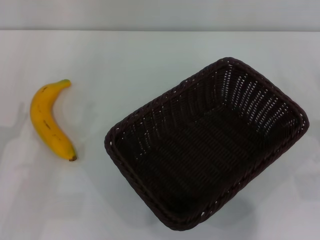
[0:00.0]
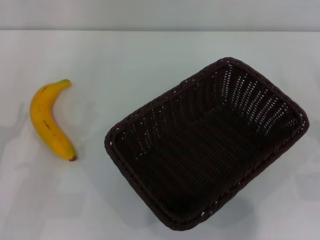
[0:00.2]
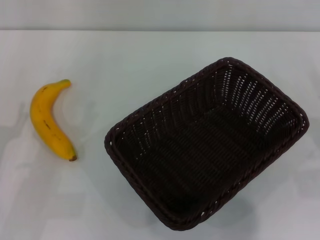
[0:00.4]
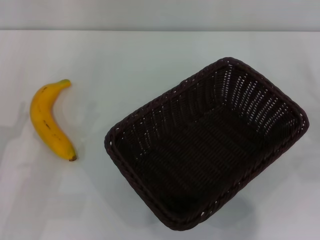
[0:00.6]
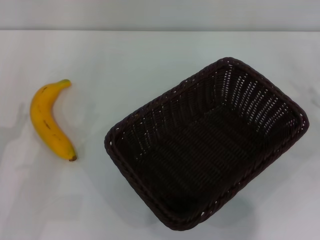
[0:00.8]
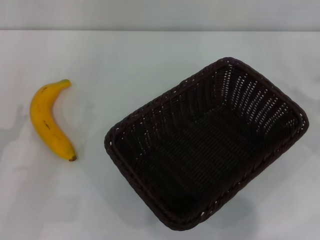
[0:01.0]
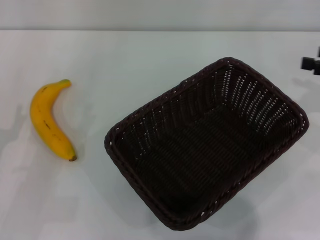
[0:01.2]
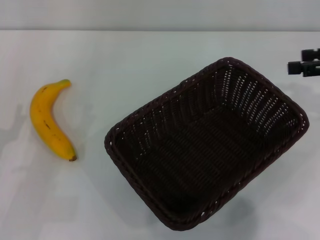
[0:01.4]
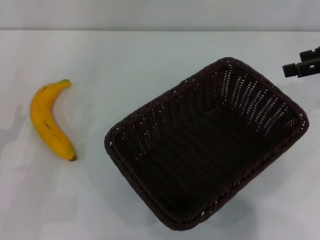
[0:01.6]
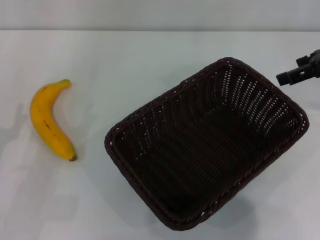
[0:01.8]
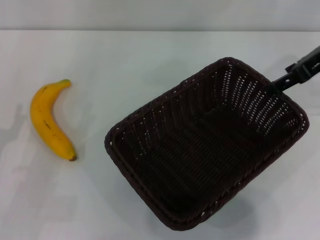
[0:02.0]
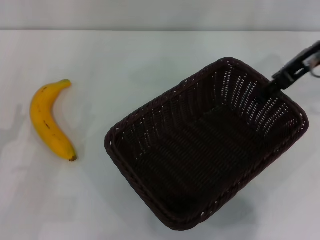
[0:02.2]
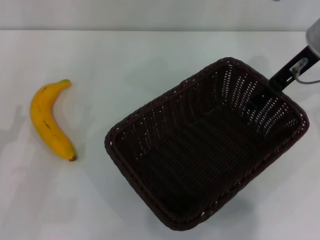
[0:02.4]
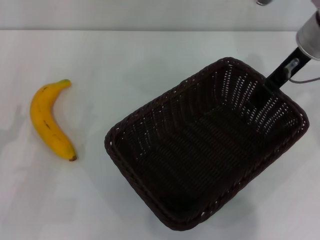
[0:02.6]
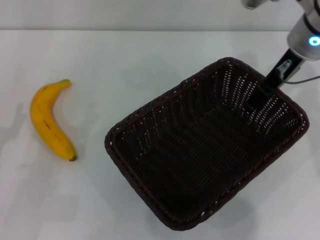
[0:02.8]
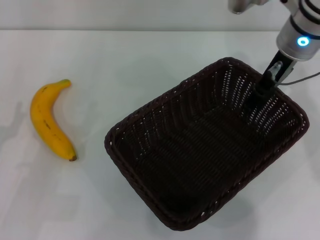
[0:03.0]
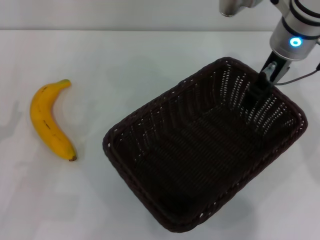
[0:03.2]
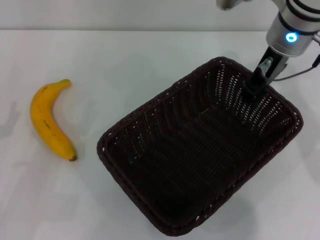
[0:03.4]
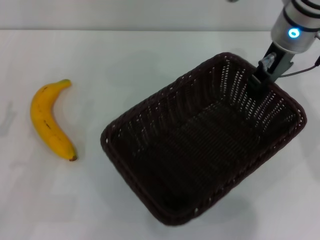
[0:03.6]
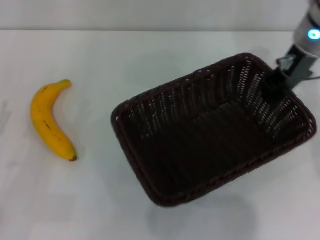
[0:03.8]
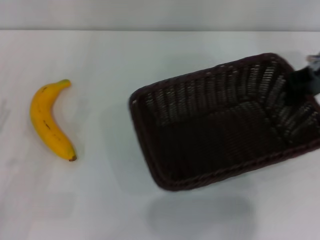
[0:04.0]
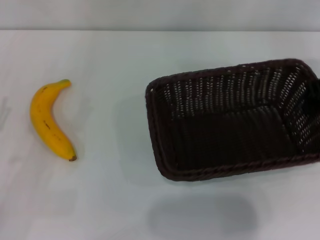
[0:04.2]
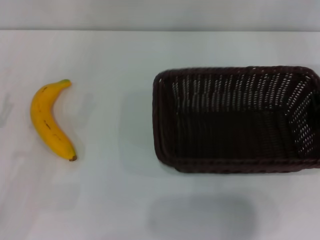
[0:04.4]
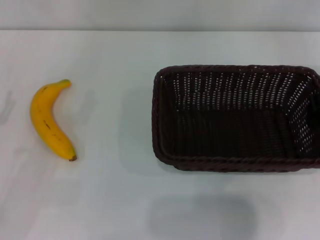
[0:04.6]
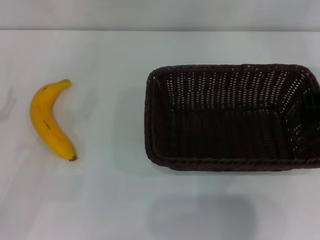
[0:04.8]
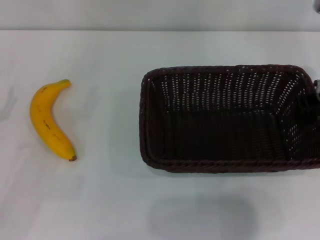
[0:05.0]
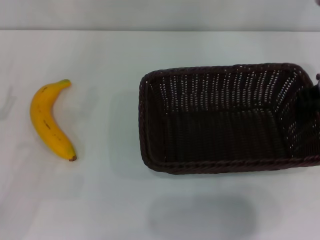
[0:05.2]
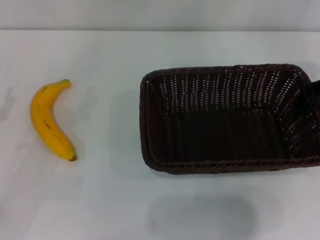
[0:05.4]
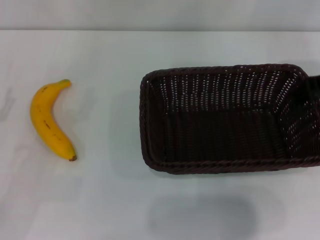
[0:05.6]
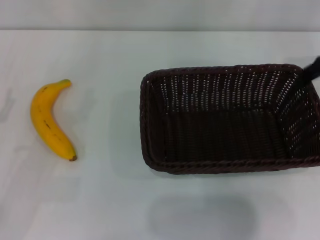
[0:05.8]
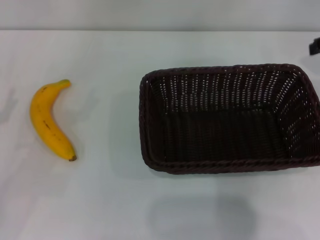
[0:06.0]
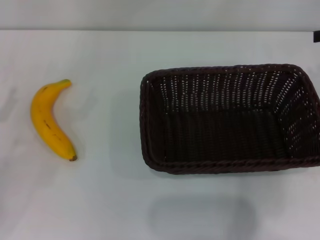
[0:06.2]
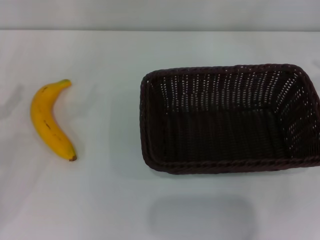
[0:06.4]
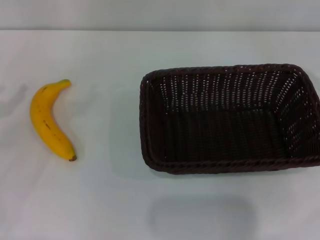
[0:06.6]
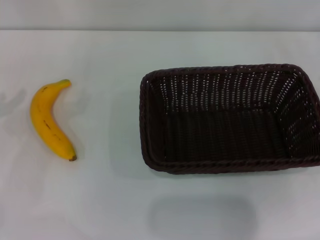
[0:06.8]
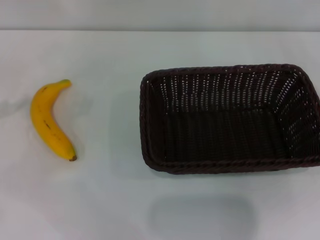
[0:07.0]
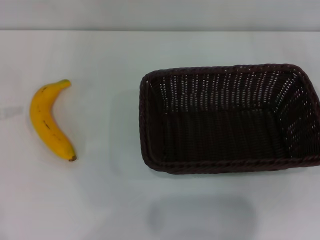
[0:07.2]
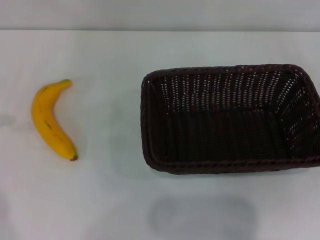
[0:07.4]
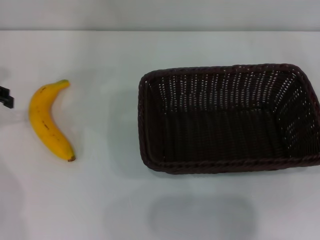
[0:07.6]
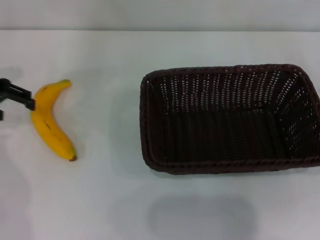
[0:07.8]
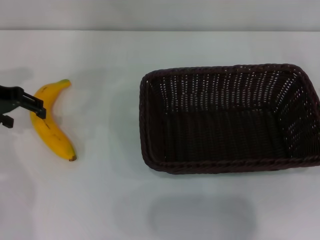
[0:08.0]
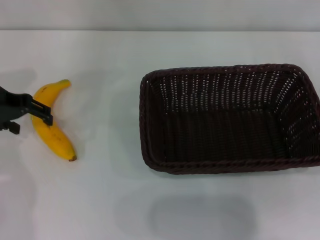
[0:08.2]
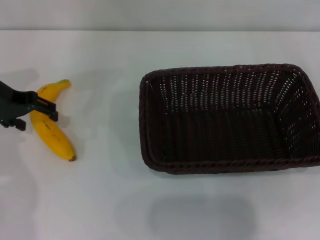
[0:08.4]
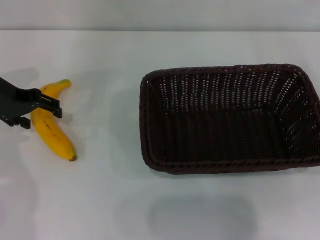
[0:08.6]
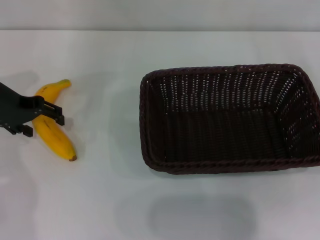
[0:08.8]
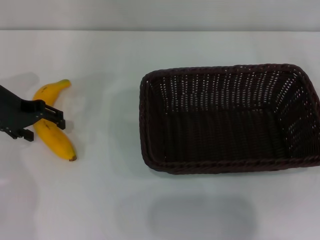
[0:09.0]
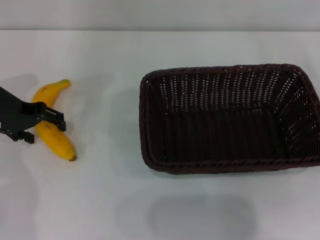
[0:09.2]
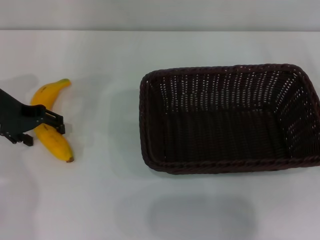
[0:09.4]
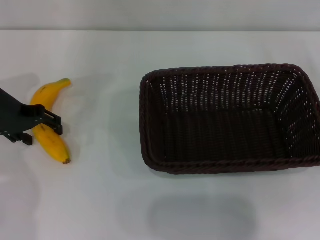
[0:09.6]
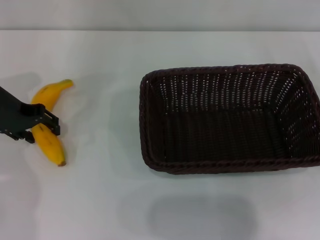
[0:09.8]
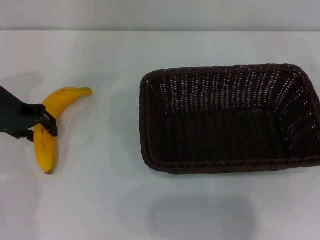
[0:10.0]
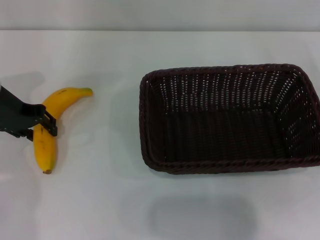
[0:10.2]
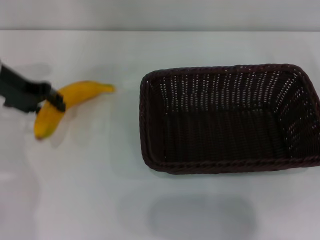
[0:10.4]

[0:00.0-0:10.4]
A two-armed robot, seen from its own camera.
Step, 0:00.0 to 0:03.8: Pick up the dark basket with the right gripper.
Step, 0:04.0 to 0:06.2: Place the dark basket in the center of view with the right gripper.
0:00.0 to 0:01.4: The right gripper goes some 20 cm upward and forward.
0:01.4 to 0:03.0: The right gripper moves to the left, about 20 cm.
0:03.0 to 0:04.4: The right gripper travels to the right by about 10 cm, and closes.
0:04.4 to 0:06.0: The right gripper shifts approximately 5 cm upward, and opens its fingers.
0:06.0 to 0:07.4: The right gripper goes approximately 20 cm downward, to the right and backward.
0:07.4 to 0:09.0: The left gripper heads to the right and downward, covering about 15 cm, and opens.
0:09.0 to 0:10.4: The left gripper closes.

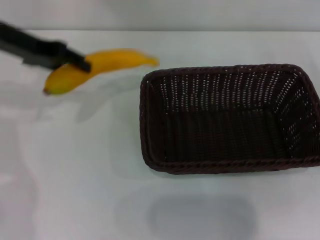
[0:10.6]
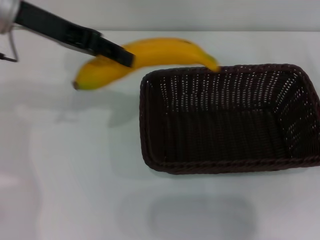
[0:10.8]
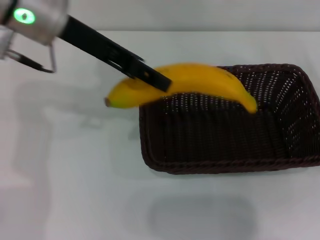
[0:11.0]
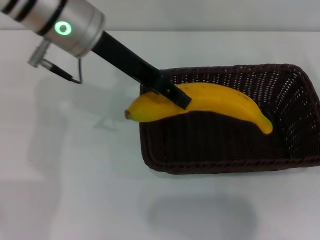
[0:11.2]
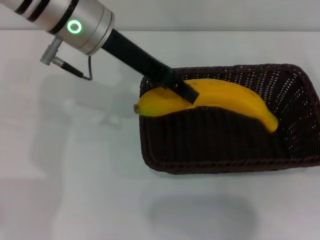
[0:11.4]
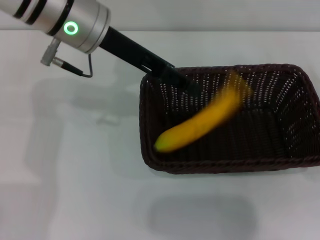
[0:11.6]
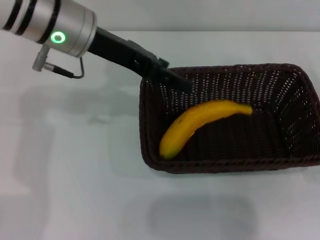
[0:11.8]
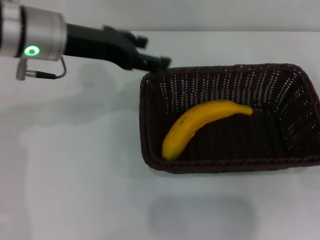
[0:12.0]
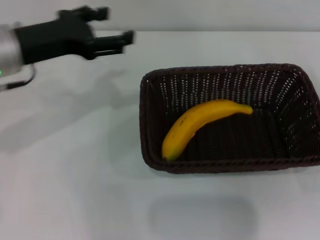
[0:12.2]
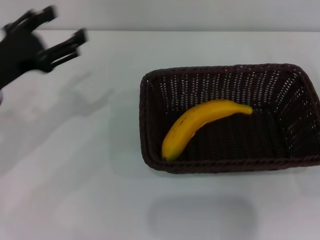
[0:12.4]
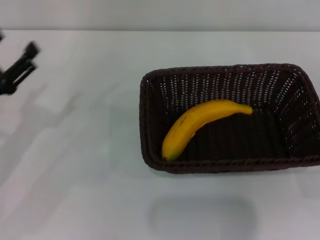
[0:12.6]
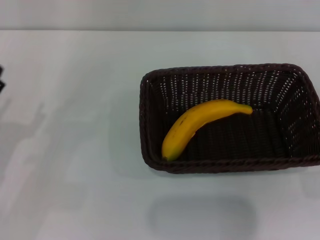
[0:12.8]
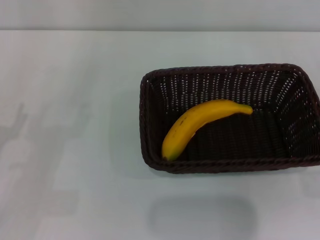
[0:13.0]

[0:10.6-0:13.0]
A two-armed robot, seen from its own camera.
Step, 0:10.8 to 0:11.6: Place the banana into the dark basket with the left gripper.
0:10.6 to 0:11.8: The left gripper shifts approximately 10 cm to the right, and opens.
0:11.8 to 0:13.0: The left gripper moves downward, to the left and backward, approximately 30 cm, and opens its fingers.

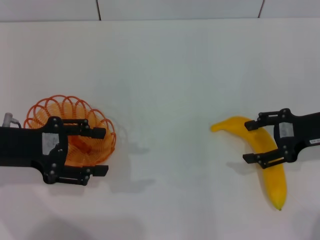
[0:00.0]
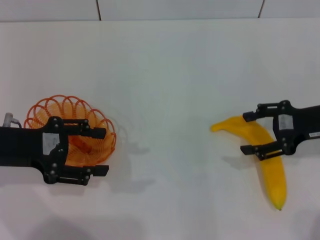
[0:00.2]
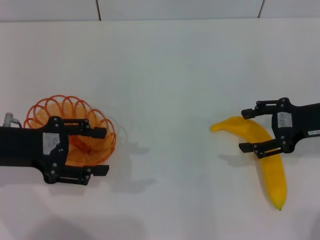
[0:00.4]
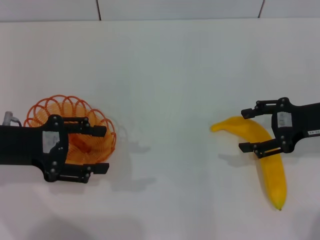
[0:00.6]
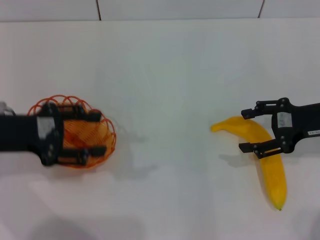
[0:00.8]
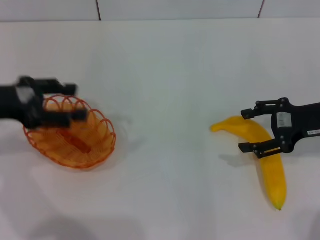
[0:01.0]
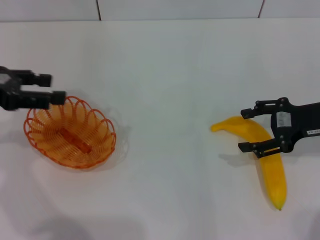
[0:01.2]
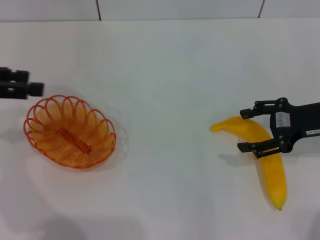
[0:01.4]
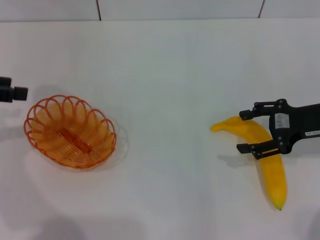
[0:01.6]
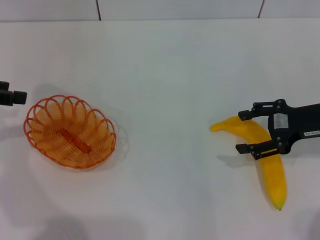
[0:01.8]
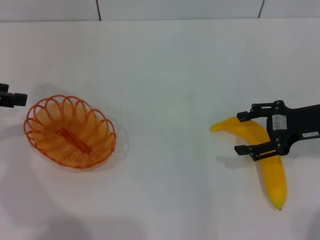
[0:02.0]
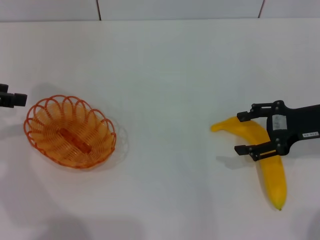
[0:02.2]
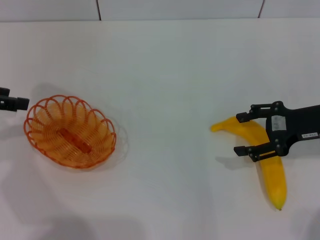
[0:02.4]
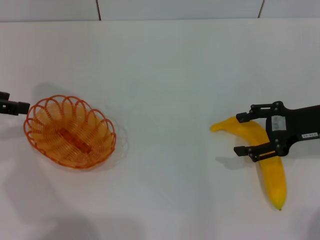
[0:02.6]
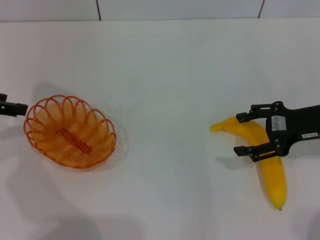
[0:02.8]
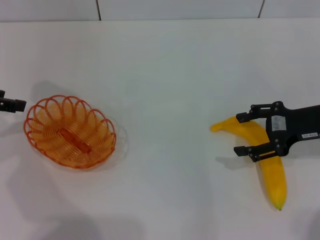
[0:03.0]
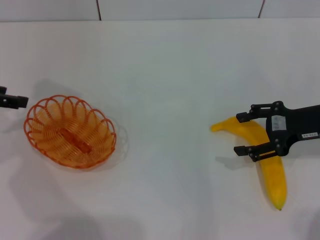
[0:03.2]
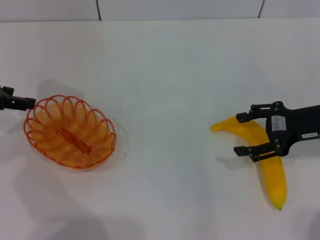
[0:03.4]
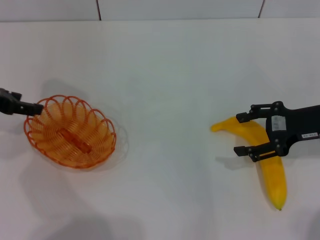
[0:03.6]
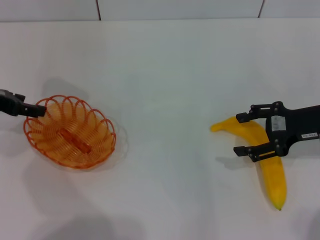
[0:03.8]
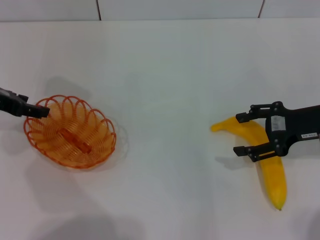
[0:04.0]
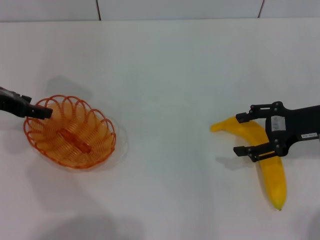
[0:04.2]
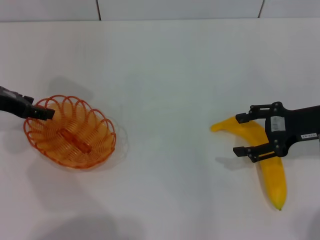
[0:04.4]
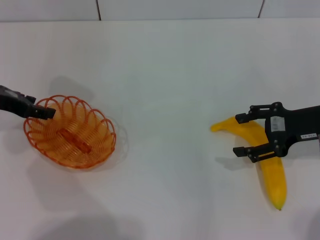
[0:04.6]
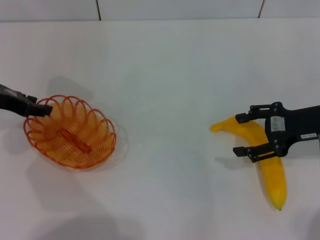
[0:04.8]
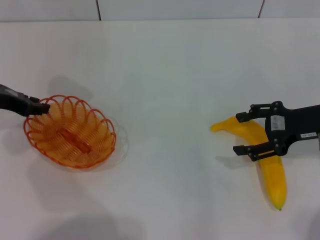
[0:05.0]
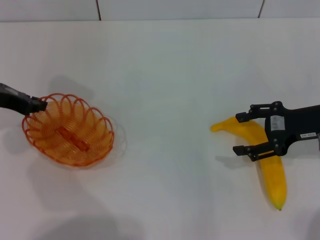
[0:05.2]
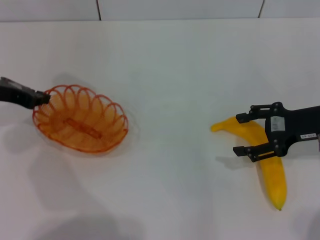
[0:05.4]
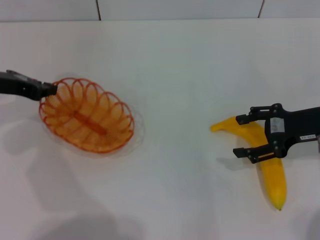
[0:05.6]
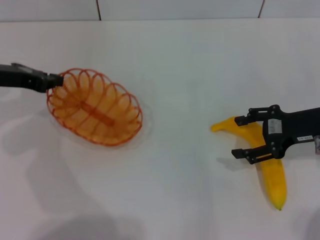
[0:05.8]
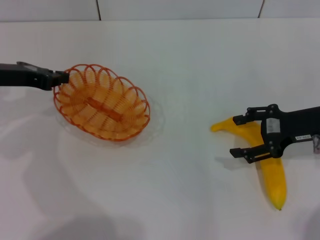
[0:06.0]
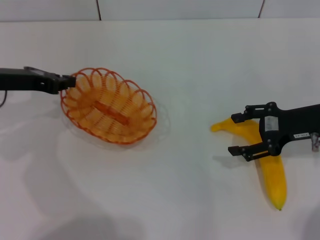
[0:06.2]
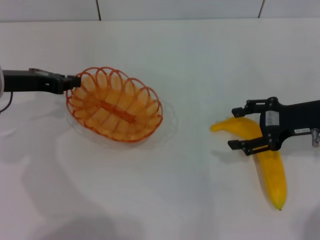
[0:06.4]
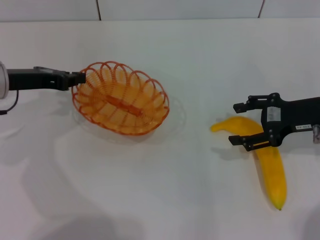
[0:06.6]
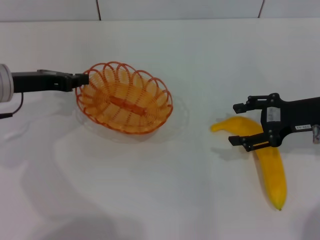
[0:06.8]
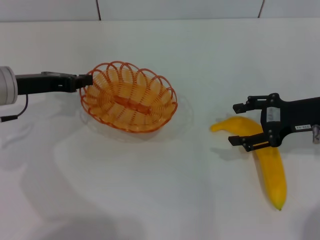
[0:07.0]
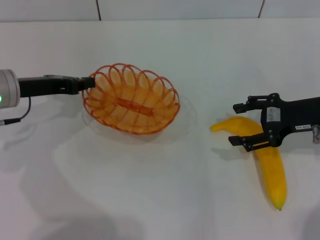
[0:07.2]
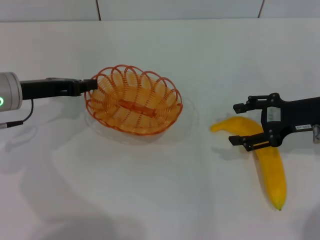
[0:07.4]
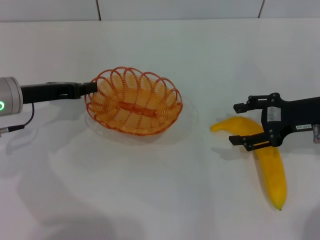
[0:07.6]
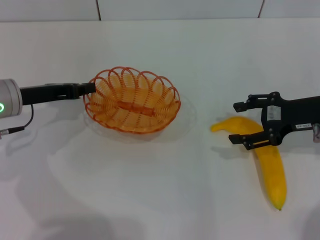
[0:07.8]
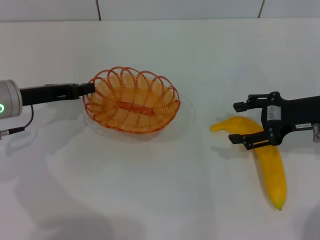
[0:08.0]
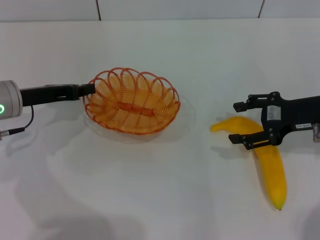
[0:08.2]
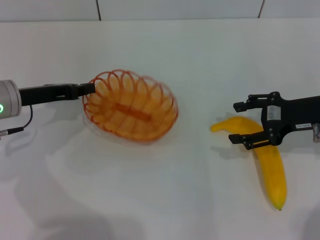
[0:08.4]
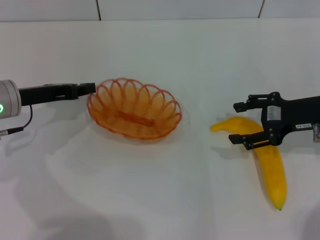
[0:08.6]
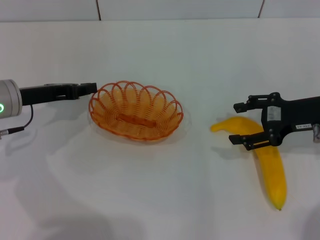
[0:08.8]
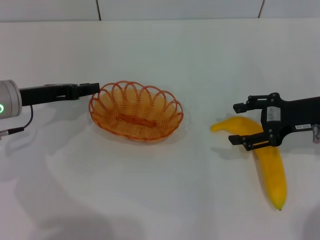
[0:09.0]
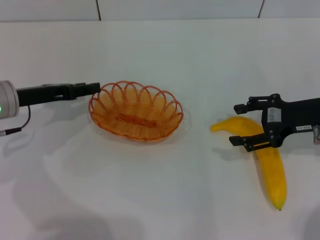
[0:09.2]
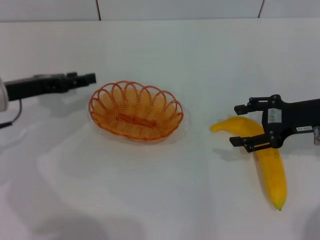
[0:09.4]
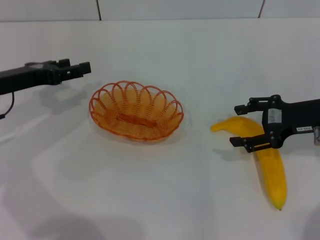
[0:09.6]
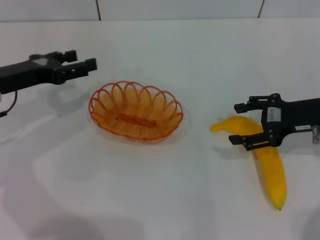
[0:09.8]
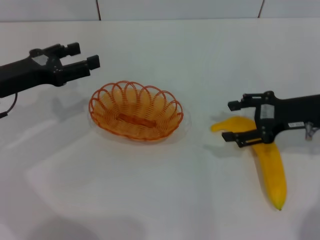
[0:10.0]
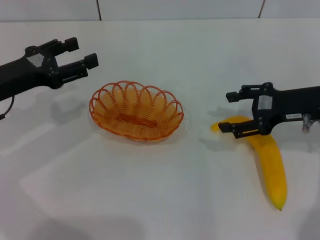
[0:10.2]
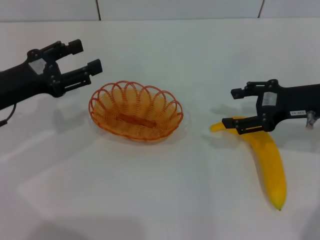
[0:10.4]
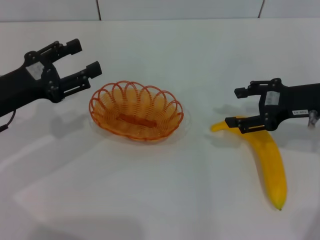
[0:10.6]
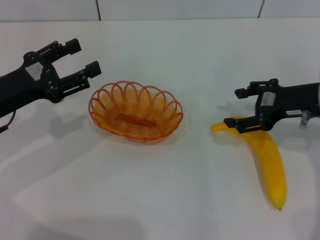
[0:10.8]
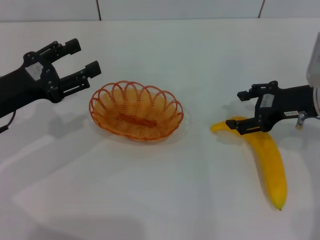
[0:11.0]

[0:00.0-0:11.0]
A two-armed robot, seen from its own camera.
Step, 0:00.0 to 0:05.8: Pick up the basket with the left gripper.
Step, 0:06.0 to 0:09.4: Place the basket in the center of view with the left gripper.
0:00.0 to 0:01.6: The left gripper moves upward and to the left, about 10 cm.
0:01.6 to 0:03.2: The grippers make only small movements.
0:03.2 to 0:04.8: The left gripper shifts by approximately 5 cm.
0:04.8 to 0:06.2: The left gripper closes its fingers.
0:06.2 to 0:07.8: There are only small adjustments of the grippers.
0:07.8 to 0:09.4: The left gripper opens.
0:09.4 to 0:11.0: The left gripper shifts some 5 cm backward.
